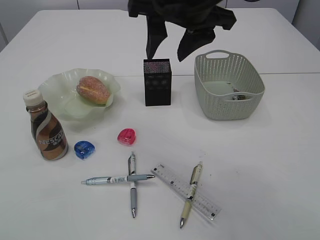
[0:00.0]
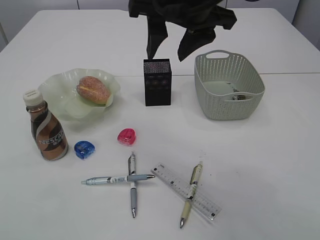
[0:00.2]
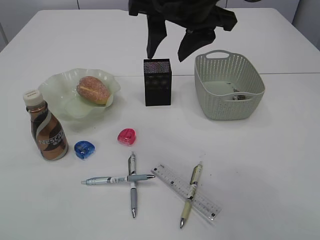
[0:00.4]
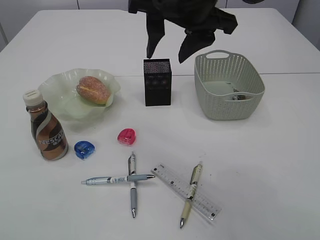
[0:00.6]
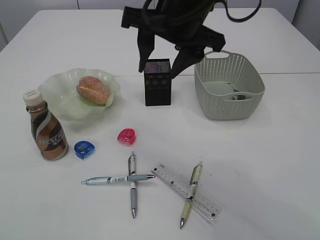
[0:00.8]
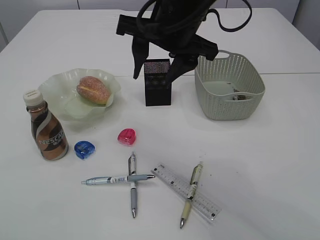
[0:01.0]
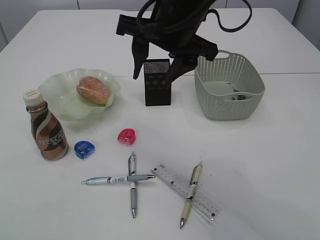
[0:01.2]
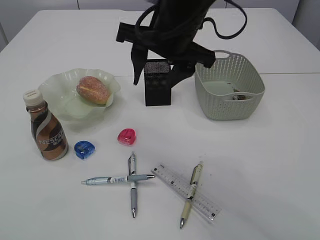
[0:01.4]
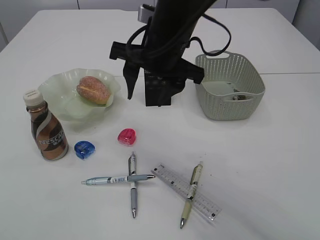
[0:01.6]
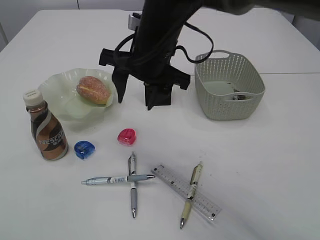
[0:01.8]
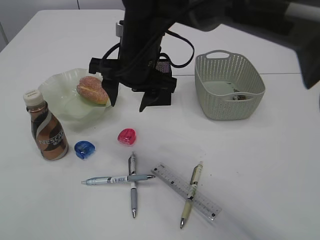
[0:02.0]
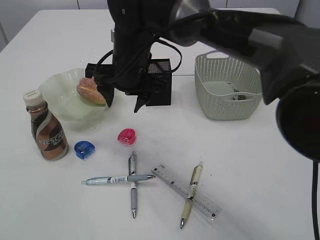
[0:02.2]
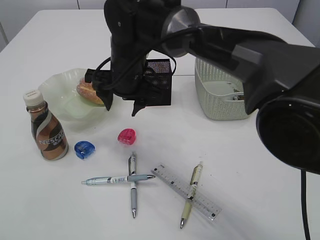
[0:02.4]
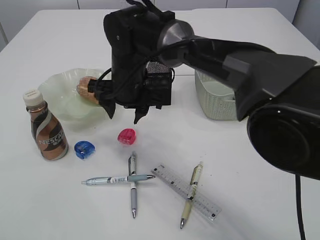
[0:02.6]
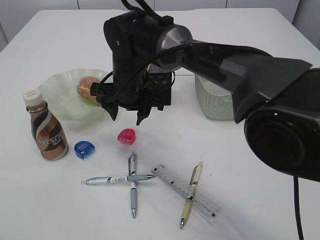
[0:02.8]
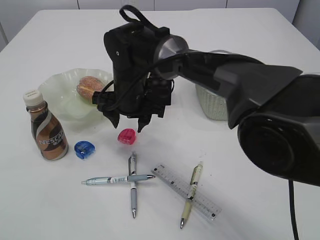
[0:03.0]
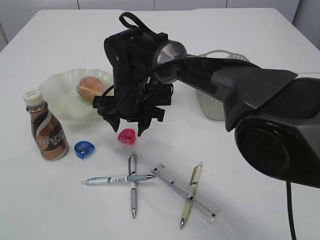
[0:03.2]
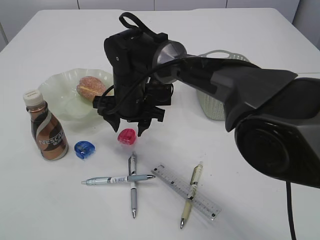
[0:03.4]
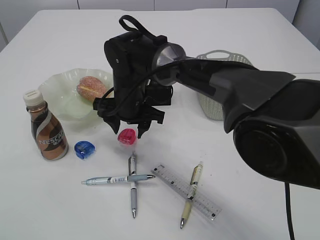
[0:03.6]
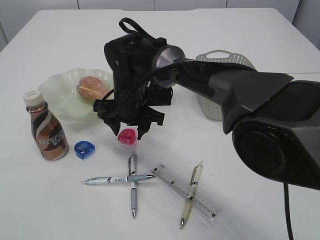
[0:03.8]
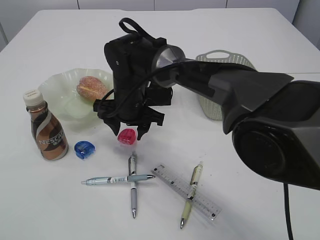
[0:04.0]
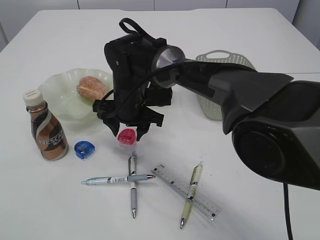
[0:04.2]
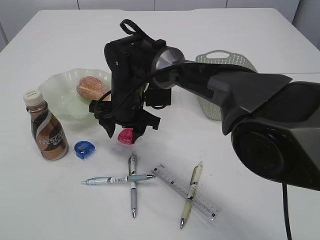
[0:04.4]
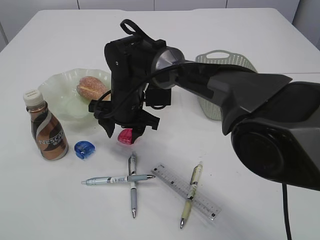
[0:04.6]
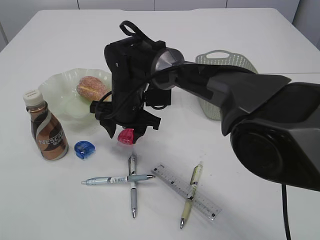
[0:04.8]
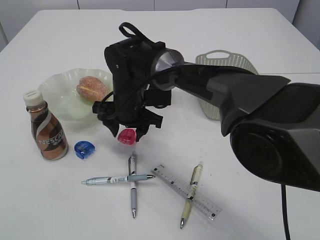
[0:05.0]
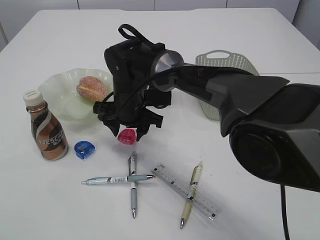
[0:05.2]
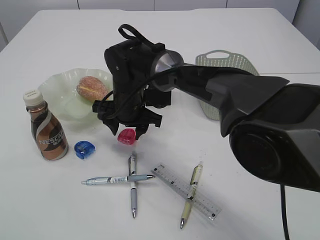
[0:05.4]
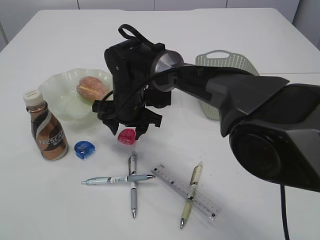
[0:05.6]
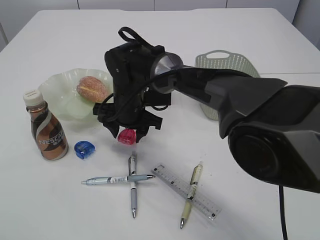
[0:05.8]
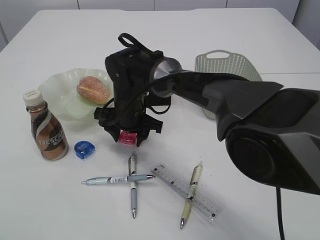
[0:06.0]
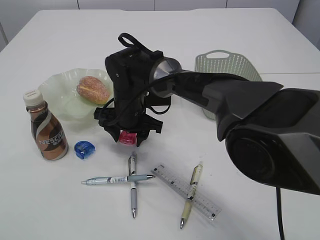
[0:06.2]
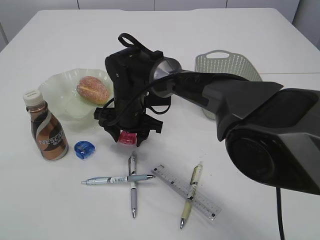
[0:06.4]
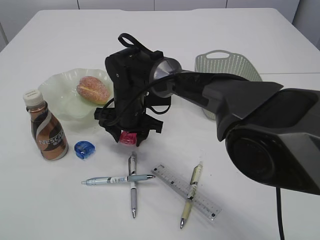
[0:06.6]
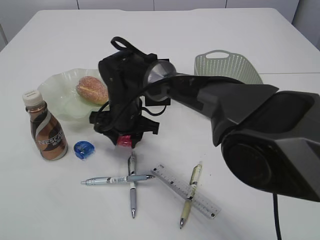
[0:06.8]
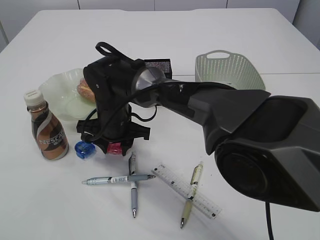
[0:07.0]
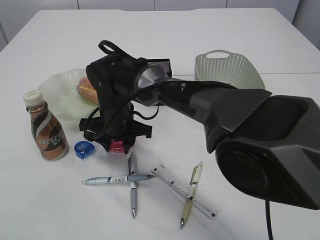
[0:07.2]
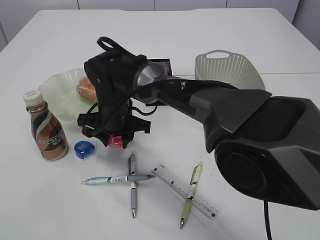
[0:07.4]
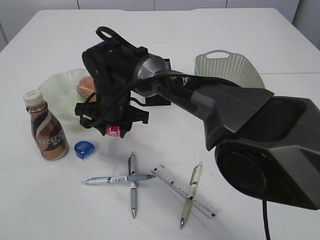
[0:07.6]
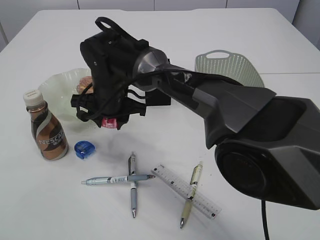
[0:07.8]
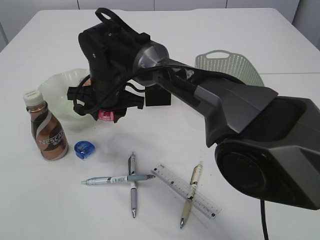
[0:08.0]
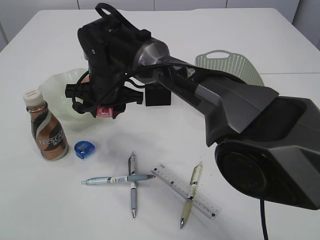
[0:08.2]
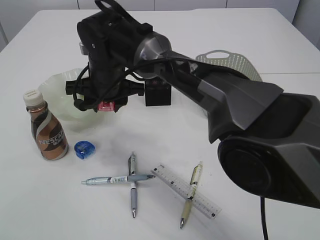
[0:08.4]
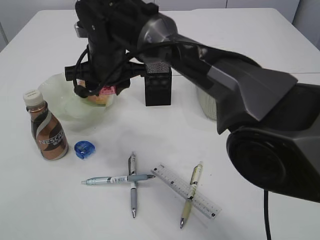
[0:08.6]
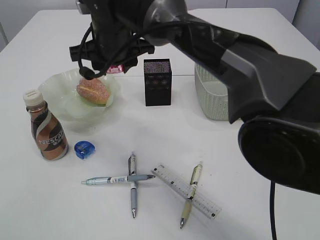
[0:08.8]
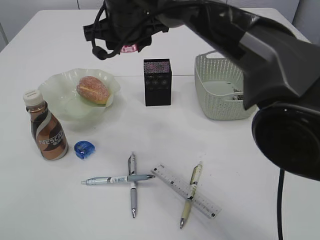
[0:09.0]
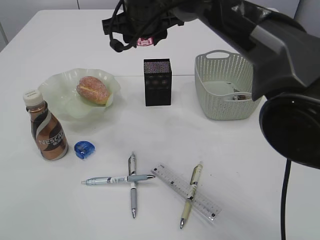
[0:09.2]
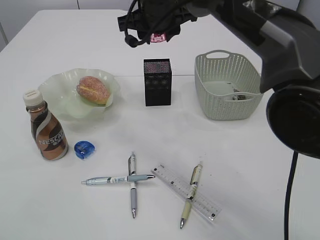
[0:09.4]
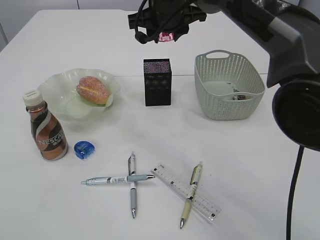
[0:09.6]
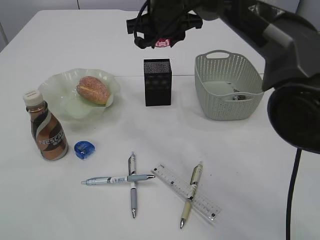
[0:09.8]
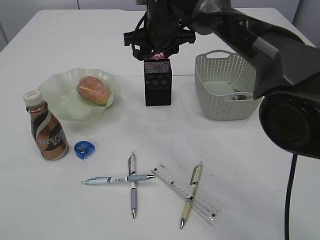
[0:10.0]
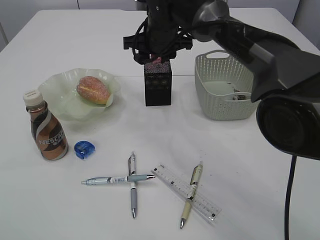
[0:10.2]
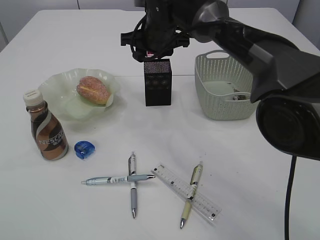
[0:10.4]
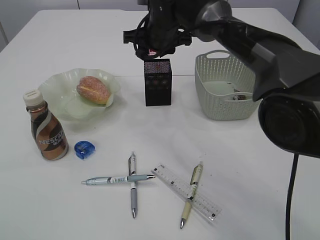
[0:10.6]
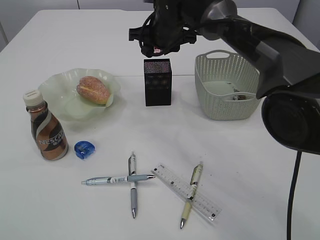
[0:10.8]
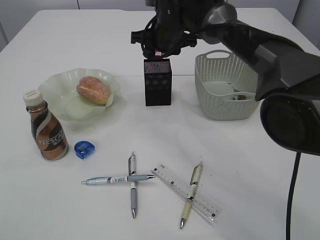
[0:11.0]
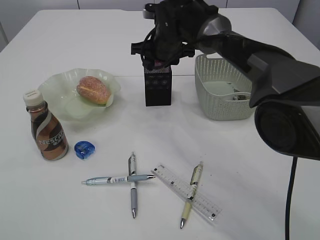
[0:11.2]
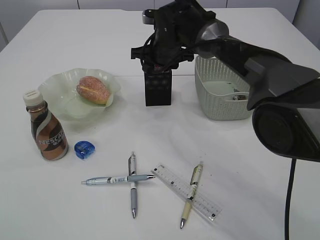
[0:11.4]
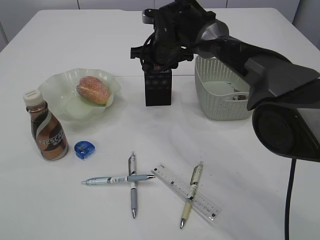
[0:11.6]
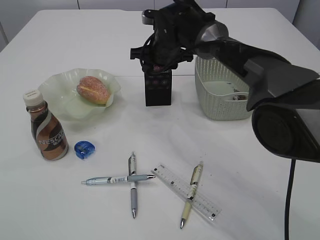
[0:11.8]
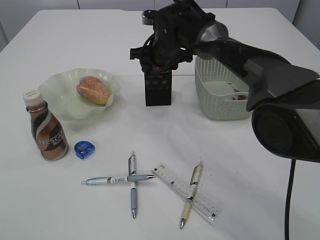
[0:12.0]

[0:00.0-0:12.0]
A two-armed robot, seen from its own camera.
Step, 0:00.0 to 0:08.0: Pick up the red pencil sharpener.
Step, 0:08.2 to 0:11.8: Place the red pencil sharpener into the pen holder.
0:00.0 to 0:01.6: The right gripper goes about 5 cm downward.
0:01.6 to 0:03.0: The right gripper is displaced downward, to the left and forward by some 15 cm.
0:03.0 to 0:07.6: The grippers stay close to where they were, moving slightly.
0:07.6 to 0:09.0: The right gripper goes roughly 15 cm upward.
0:09.0 to 0:10.4: The right gripper is displaced forward, to the right and downward by some 10 cm.
0:10.4 to 0:12.0: The right gripper shifts by roughly 5 cm.

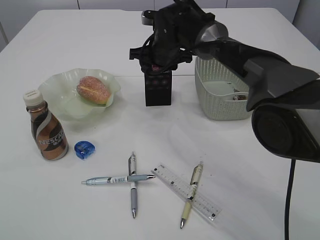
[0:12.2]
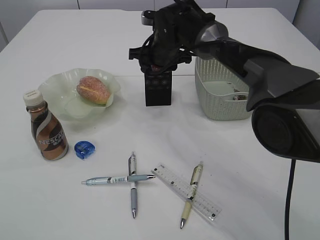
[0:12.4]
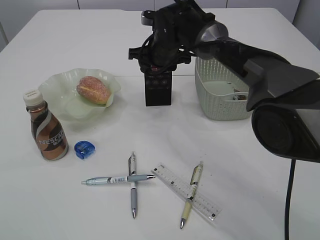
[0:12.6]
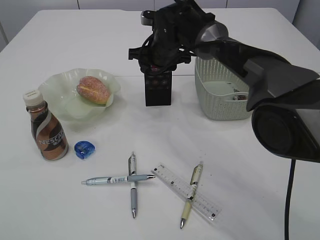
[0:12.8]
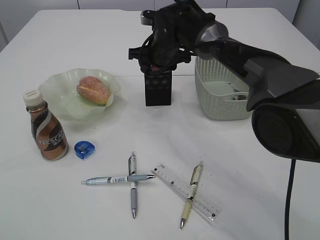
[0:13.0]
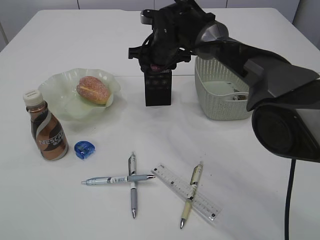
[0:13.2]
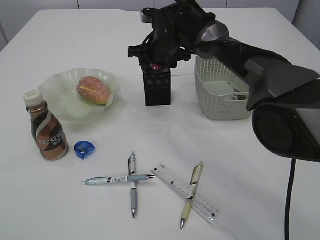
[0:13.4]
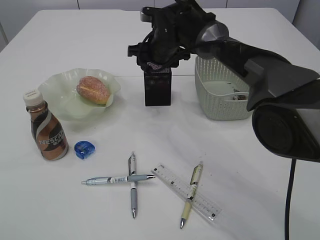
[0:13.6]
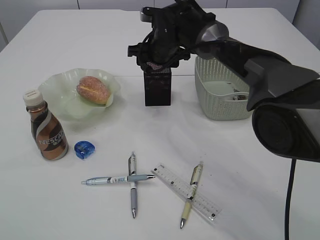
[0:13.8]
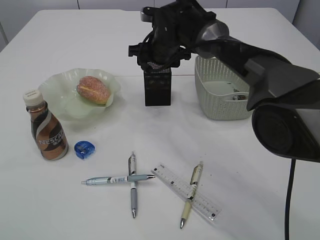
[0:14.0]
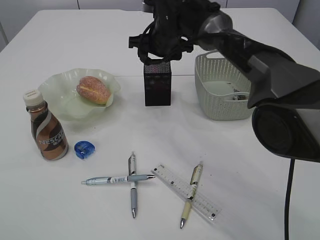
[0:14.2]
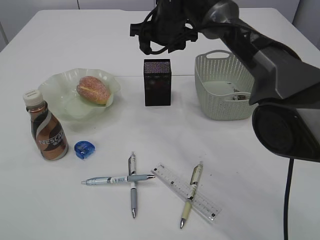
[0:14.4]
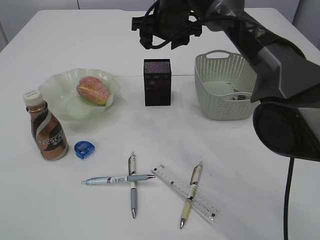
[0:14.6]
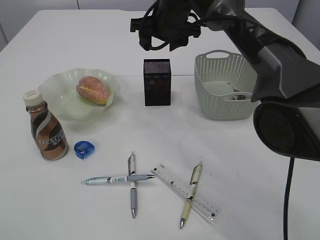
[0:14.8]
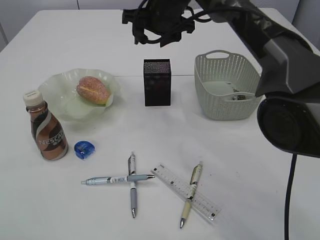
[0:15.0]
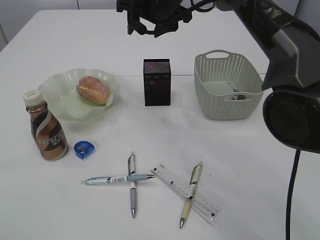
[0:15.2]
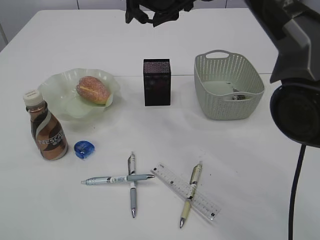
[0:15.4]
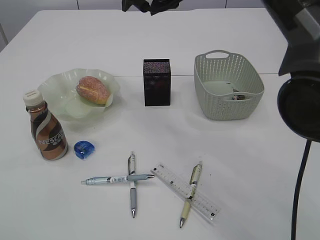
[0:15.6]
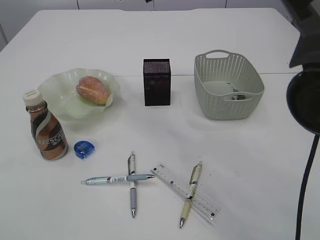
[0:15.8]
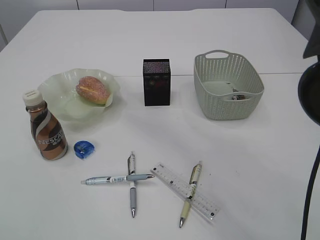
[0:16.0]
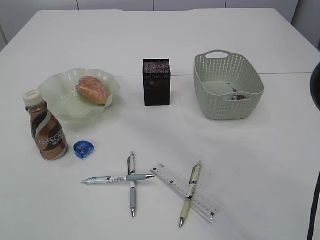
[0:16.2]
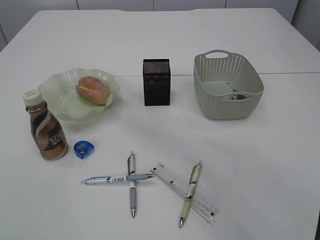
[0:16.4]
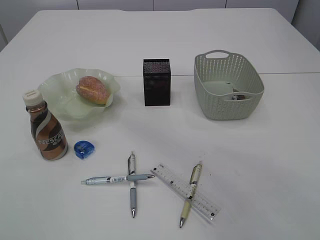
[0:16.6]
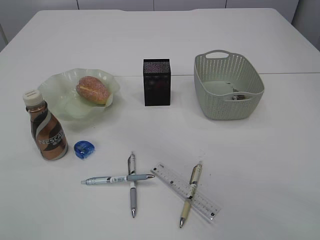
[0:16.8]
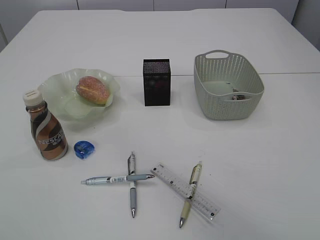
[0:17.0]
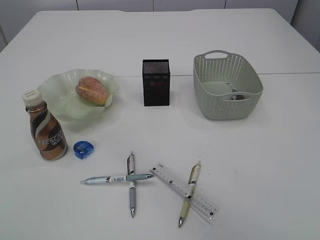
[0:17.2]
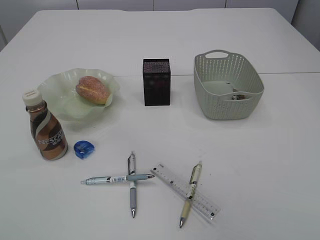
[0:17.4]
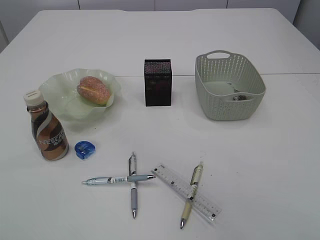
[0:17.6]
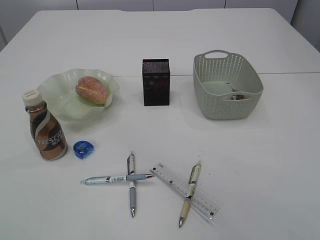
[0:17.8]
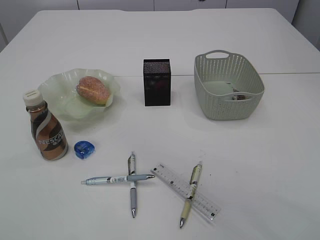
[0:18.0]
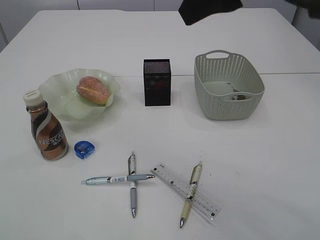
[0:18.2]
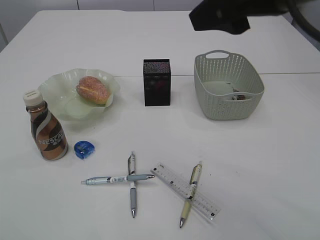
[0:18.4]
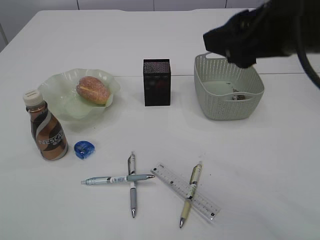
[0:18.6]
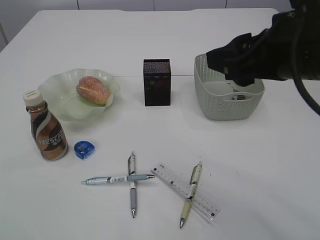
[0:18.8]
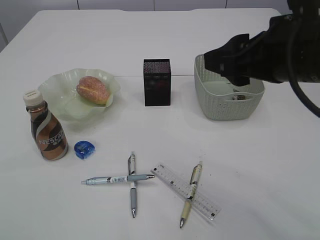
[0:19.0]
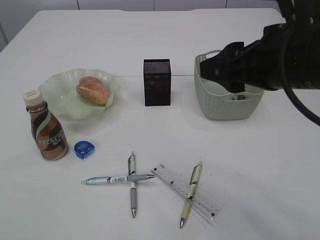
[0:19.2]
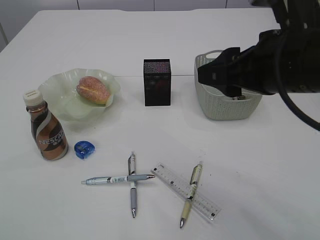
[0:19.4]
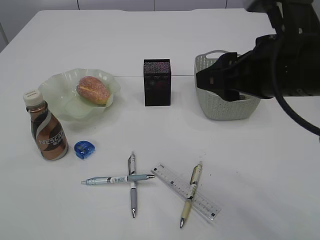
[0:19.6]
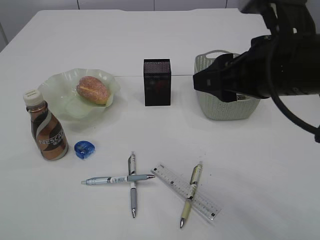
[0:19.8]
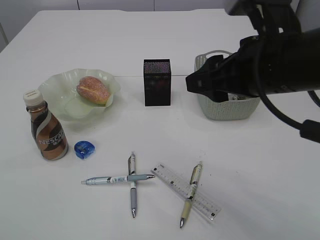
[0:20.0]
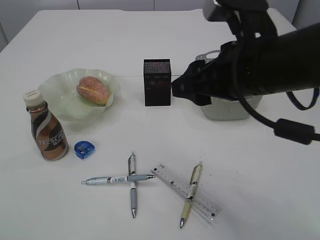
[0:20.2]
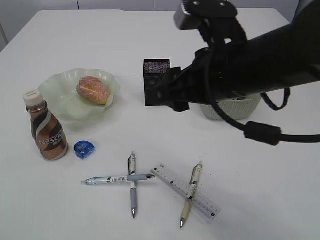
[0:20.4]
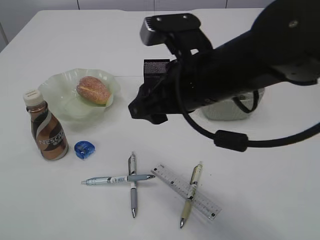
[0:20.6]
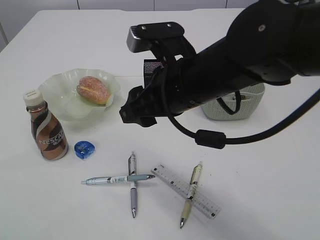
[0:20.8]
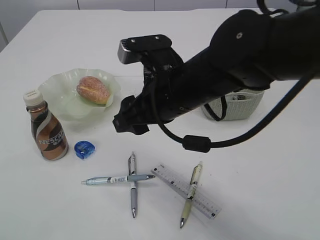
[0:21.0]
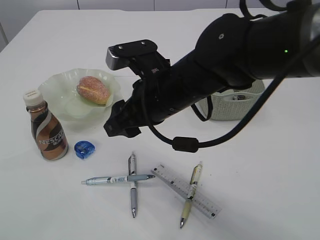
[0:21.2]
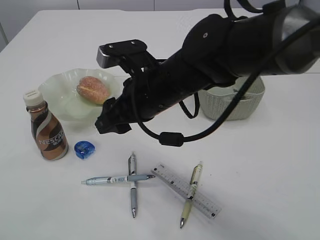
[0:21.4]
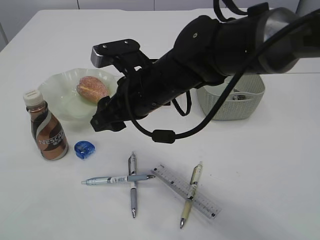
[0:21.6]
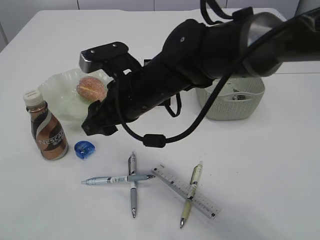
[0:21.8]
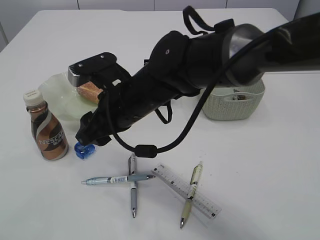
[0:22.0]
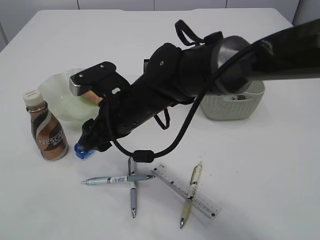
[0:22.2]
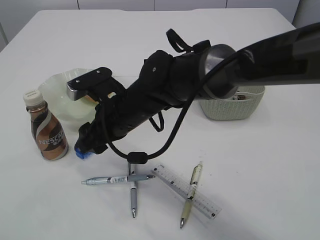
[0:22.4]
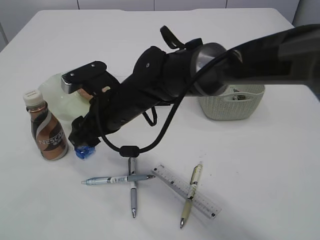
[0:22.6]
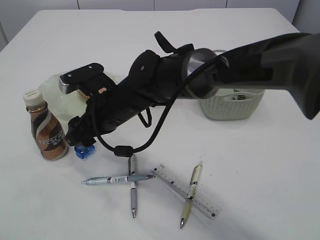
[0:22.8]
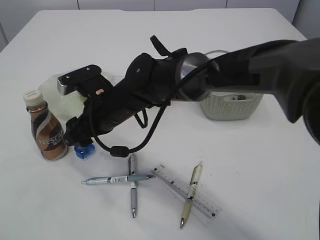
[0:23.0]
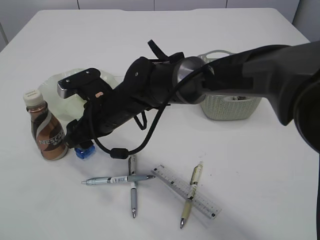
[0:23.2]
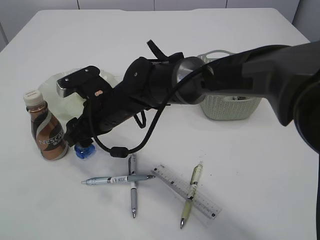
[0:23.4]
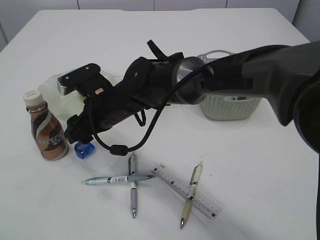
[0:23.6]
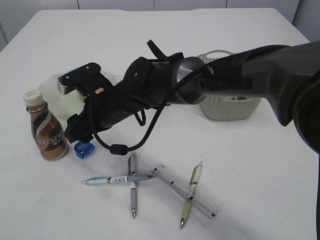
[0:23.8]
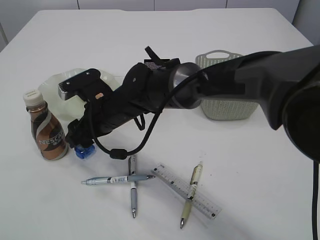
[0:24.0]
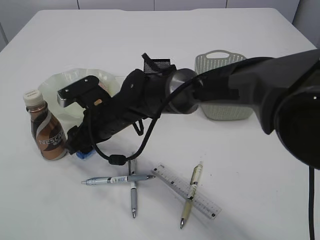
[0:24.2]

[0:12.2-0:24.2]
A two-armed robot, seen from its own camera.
0:12.2 to 0:13.8: Both grippers stay put.
0:13.8 to 0:15.2: The right gripper shifts about 10 cm upward.
0:15.2 to 0:16.6: The right gripper shifts about 20 cm upward and backward.
0:16.6 to 0:18.2: The right gripper heads backward and to the right, covering about 10 cm, and travels upward and back again, roughly 15 cm each way.
0:18.2 to 0:19.8: The right gripper shifts approximately 10 cm downward.
0:19.8 to 0:21.2: The right gripper travels to the left, downward and forward by about 15 cm.
0:21.2 to 0:22.6: The right gripper moves to the left and downward, some 10 cm.
0:22.6 to 0:24.2: The right gripper moves approximately 5 cm.
